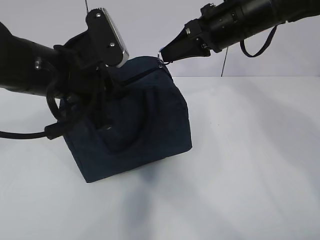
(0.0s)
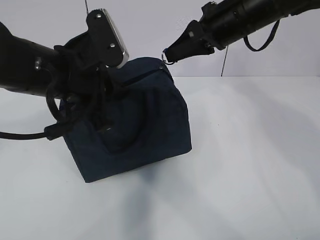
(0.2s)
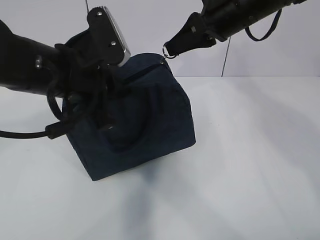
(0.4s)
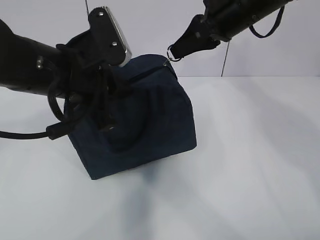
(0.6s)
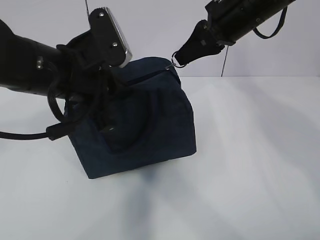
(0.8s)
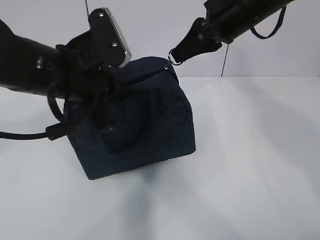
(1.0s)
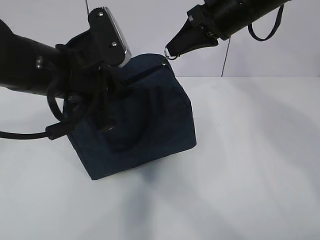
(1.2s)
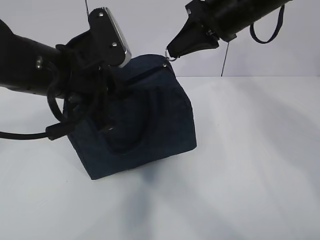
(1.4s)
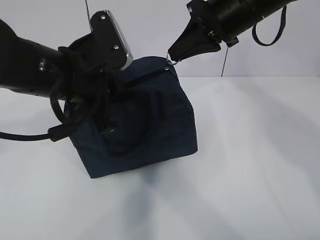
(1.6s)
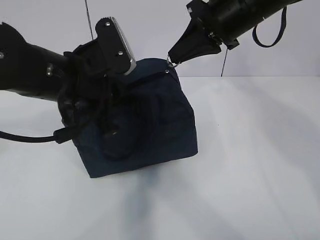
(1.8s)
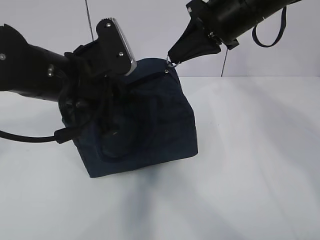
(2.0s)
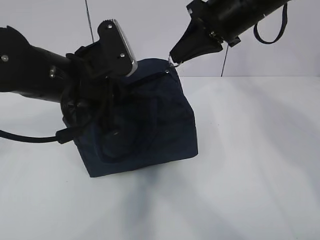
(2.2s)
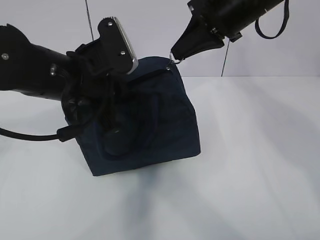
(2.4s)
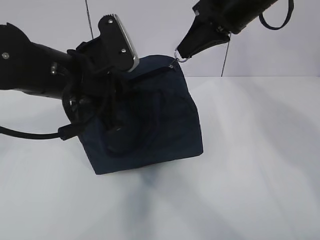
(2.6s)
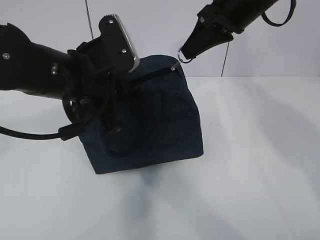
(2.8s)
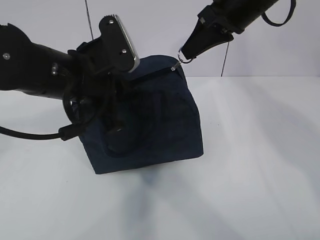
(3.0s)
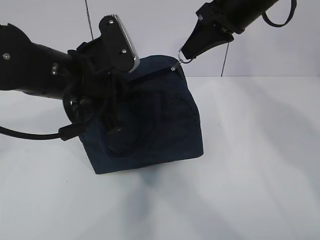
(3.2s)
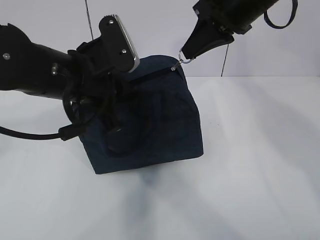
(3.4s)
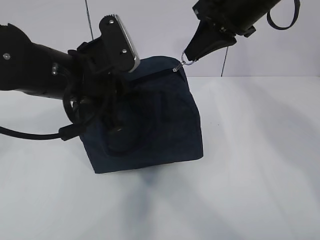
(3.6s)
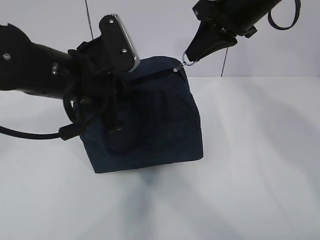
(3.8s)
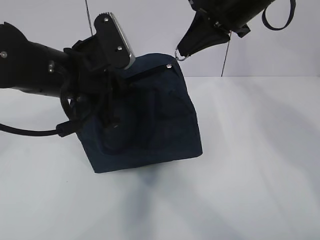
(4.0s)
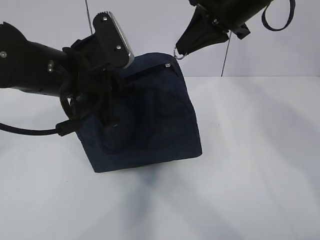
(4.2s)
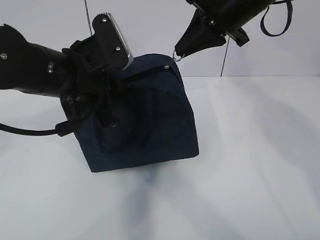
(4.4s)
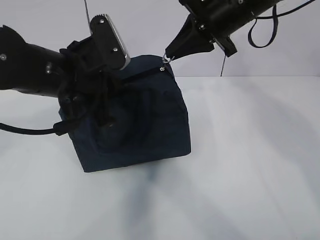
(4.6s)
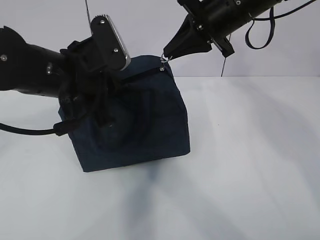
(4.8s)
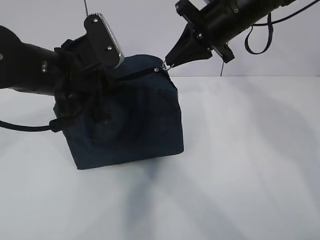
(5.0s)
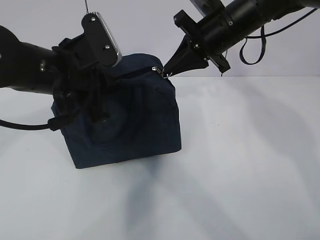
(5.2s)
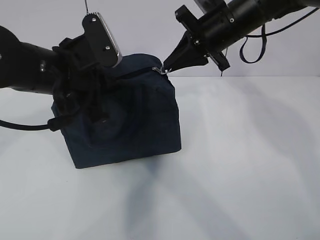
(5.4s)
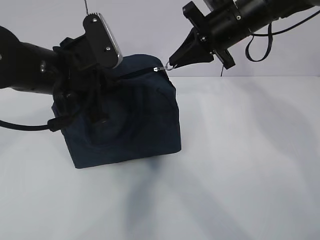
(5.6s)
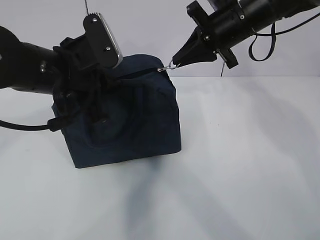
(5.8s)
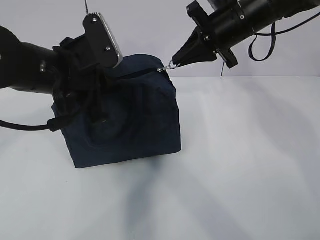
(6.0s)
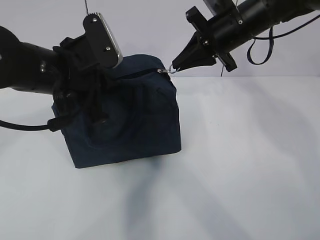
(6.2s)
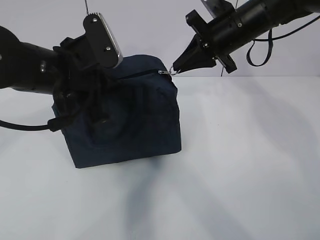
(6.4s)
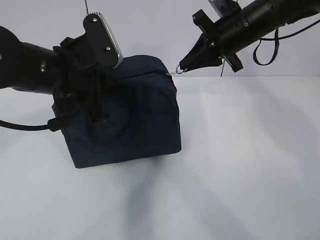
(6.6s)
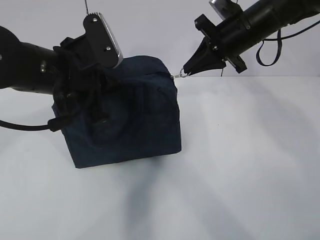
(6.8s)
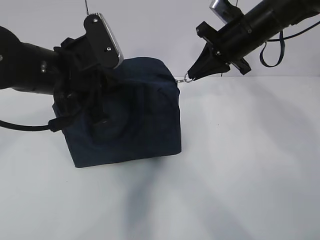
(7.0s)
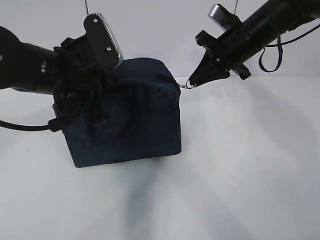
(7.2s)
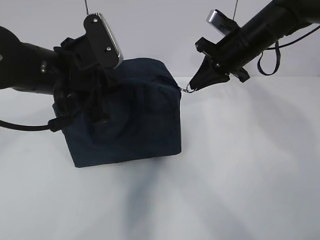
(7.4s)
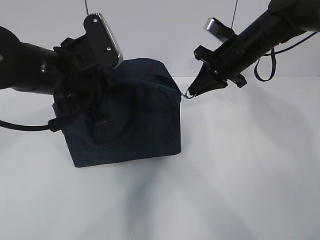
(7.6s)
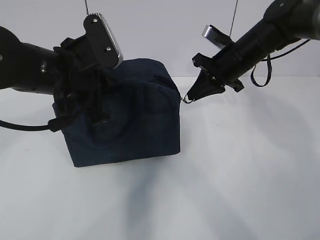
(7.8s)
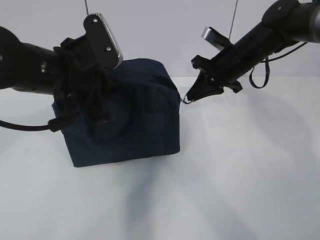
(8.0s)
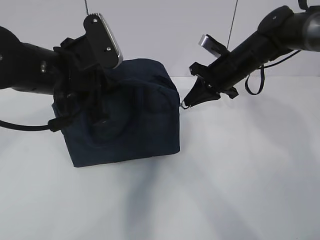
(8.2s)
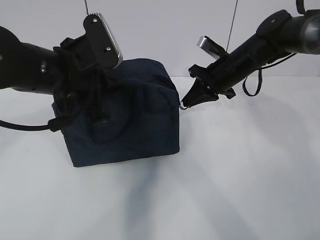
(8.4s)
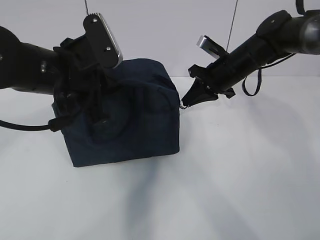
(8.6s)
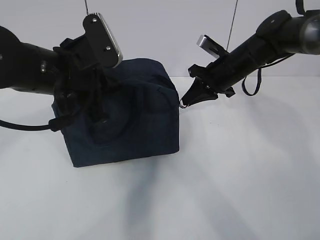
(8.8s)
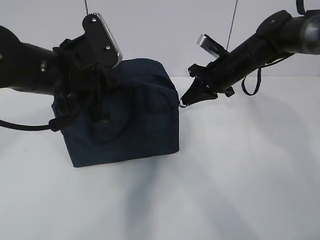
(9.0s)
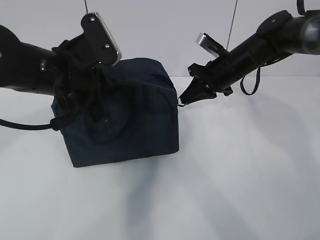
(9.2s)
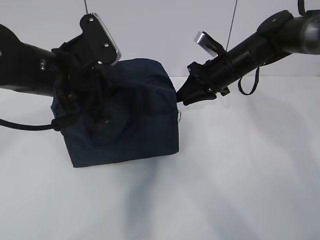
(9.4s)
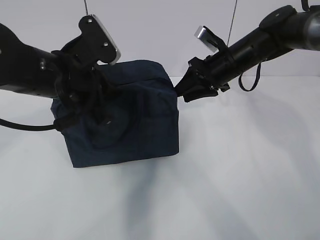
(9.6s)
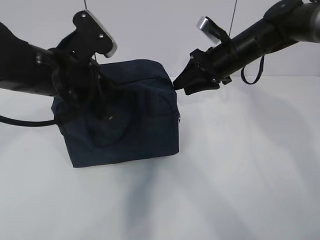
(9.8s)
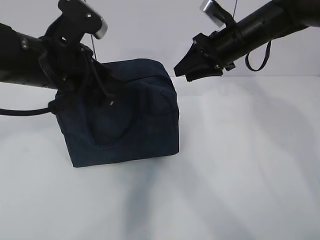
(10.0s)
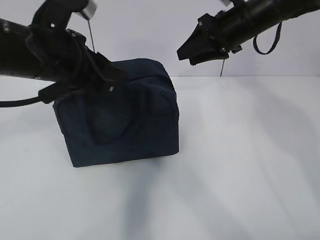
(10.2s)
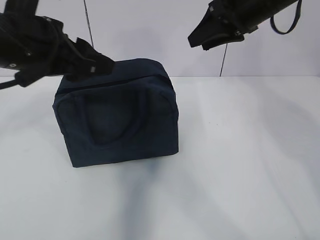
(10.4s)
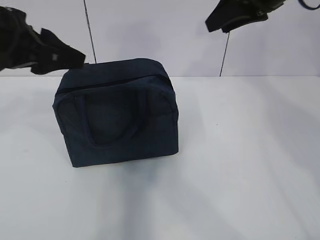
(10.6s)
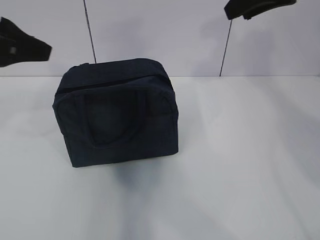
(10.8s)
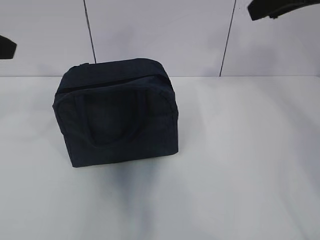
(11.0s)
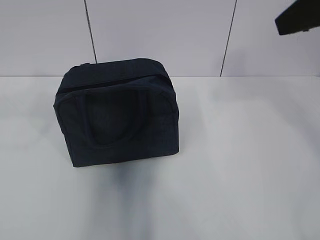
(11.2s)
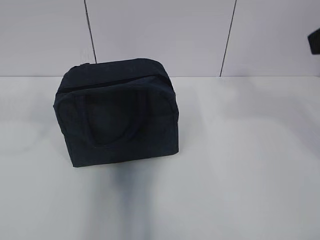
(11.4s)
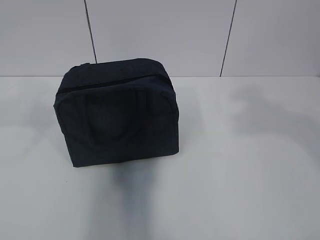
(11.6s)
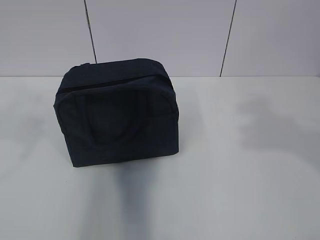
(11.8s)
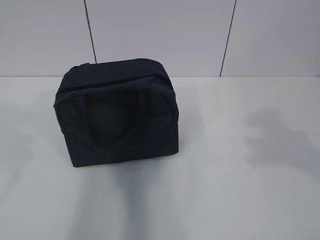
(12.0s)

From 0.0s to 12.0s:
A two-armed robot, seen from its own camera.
From 1.6s to 3.0s: The grippers make only small movements.
From 4.4s to 6.0s: The right gripper is displaced downward by roughly 5 cm.
From 6.0s to 7.6s: The right gripper is displaced downward by some 5 cm.
From 7.6s to 9.0s: The grippers make only small movements.
From 9.0s to 10.4s: The left gripper heads upward, covering approximately 5 cm, and opens; the right gripper moves upward, approximately 15 cm, and opens up.
From 10.4s to 12.0s: The right gripper goes about 35 cm backward. Meanwhile the left gripper goes some 20 cm backward and to the left.

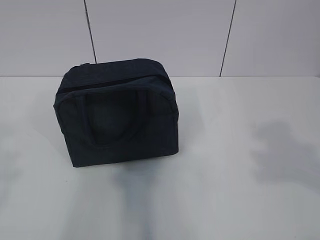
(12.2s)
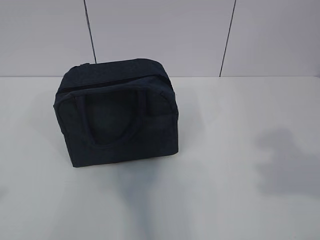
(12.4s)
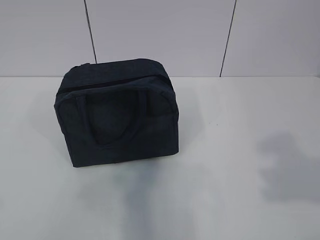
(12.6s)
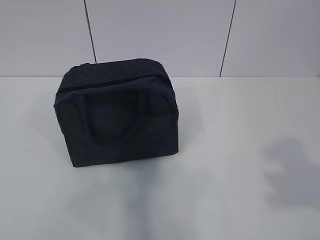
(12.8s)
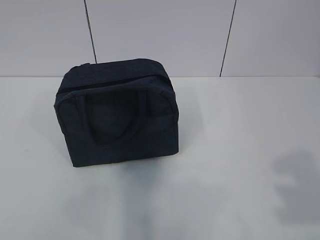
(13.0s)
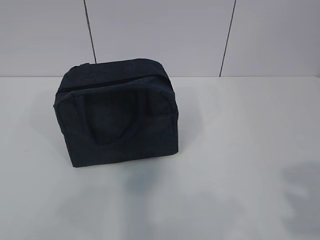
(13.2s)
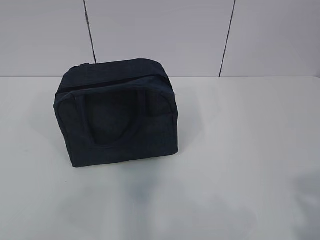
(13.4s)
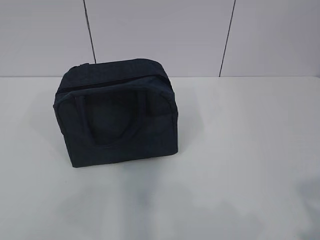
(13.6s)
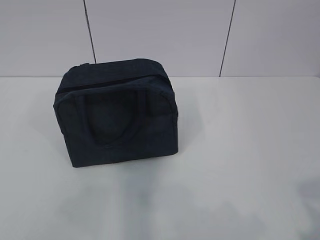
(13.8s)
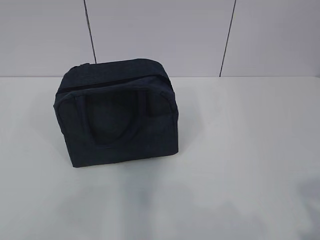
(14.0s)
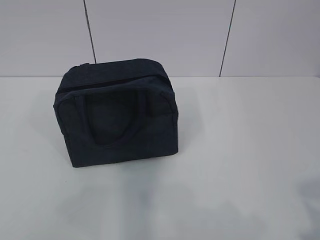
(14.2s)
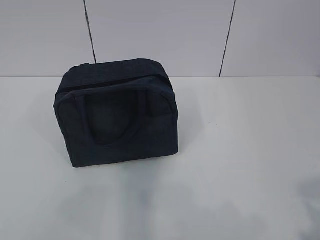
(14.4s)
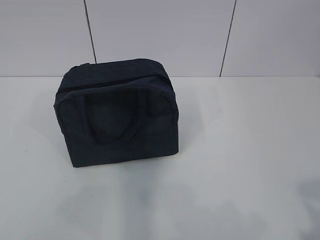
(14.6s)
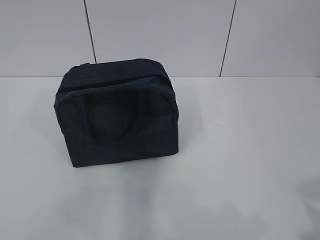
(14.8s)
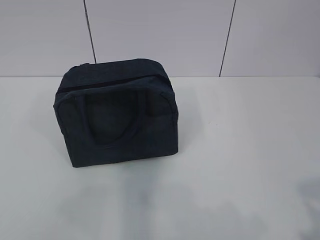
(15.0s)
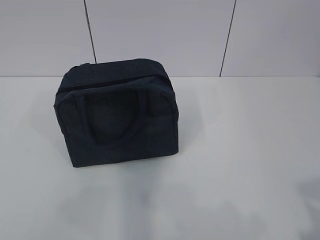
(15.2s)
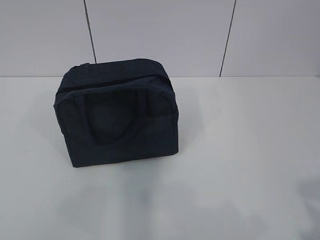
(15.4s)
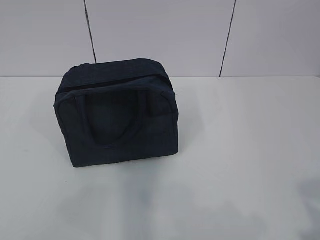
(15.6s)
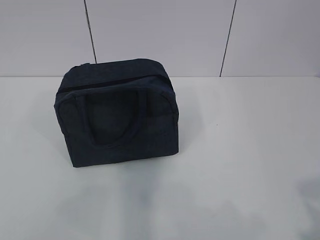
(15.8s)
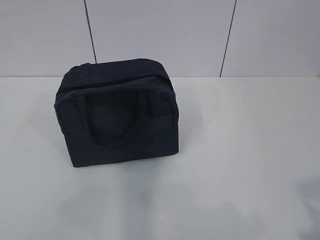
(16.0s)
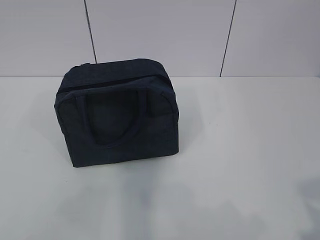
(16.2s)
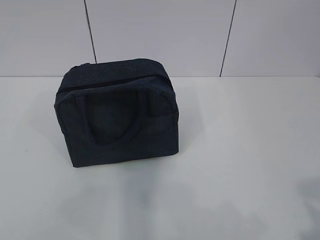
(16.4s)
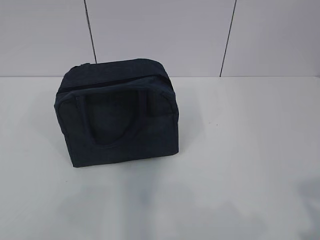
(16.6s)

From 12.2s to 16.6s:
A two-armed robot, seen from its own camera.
From 12.2s to 13.6s: The two grippers go approximately 10 cm backward and downward.
From 13.6s to 16.6s: The two grippers keep their place.

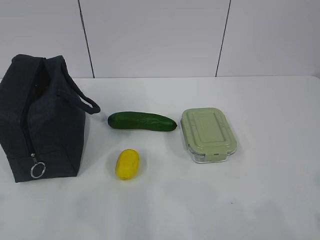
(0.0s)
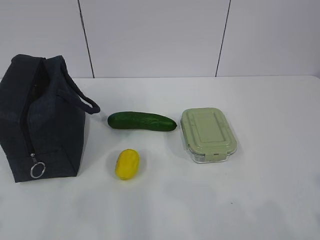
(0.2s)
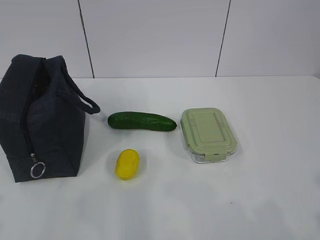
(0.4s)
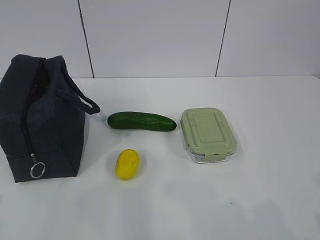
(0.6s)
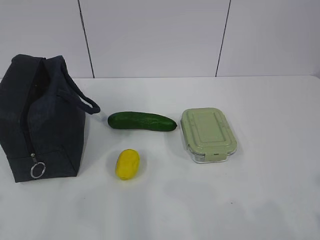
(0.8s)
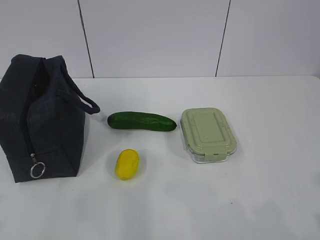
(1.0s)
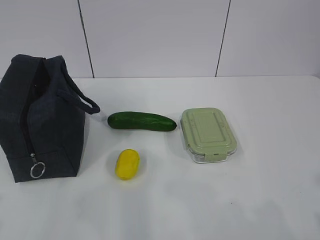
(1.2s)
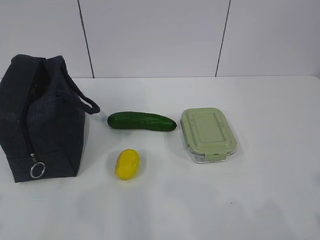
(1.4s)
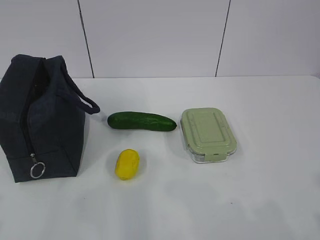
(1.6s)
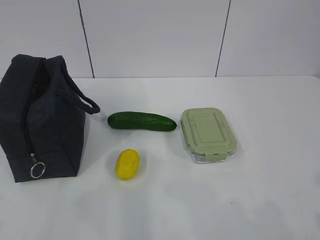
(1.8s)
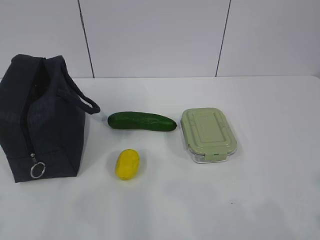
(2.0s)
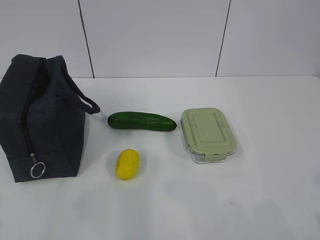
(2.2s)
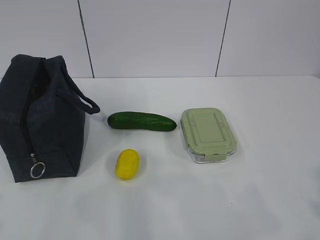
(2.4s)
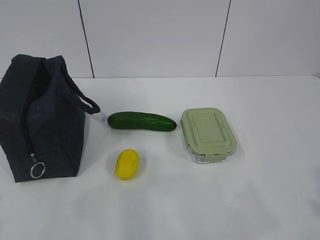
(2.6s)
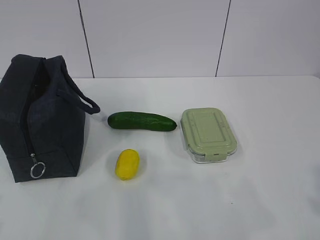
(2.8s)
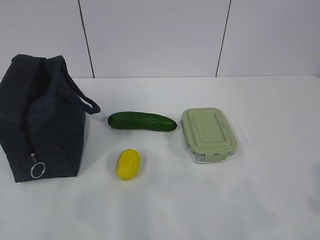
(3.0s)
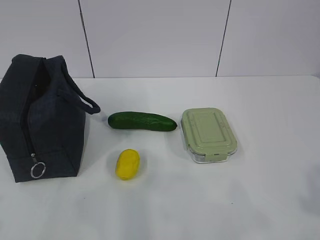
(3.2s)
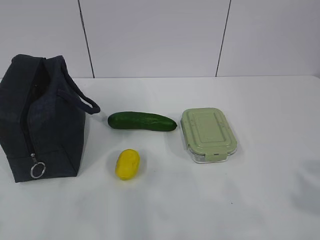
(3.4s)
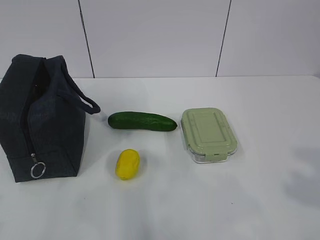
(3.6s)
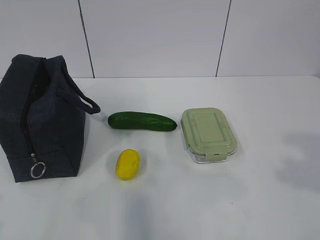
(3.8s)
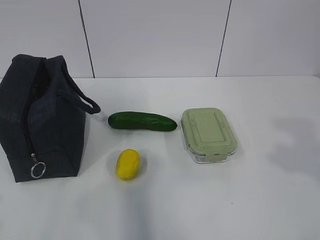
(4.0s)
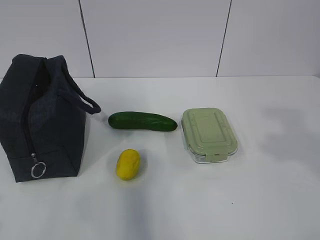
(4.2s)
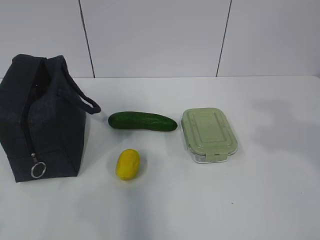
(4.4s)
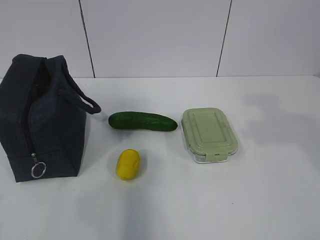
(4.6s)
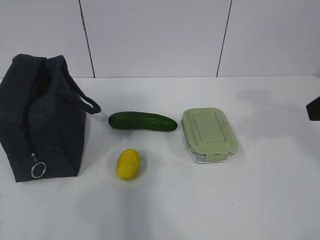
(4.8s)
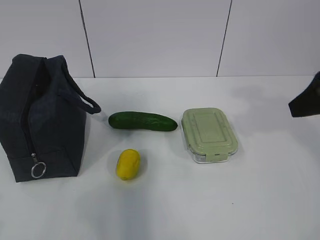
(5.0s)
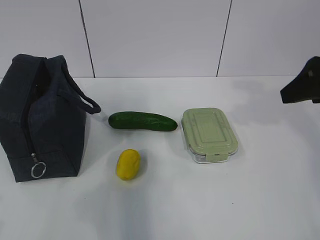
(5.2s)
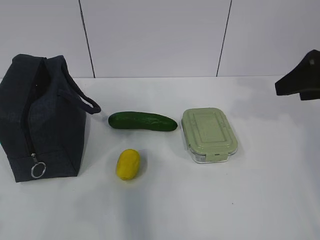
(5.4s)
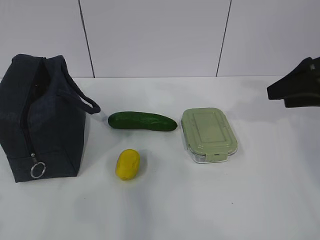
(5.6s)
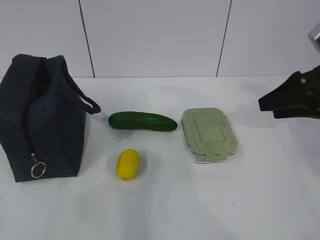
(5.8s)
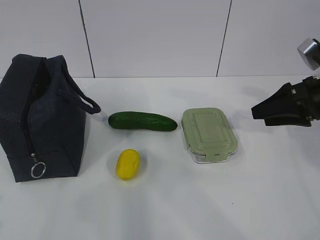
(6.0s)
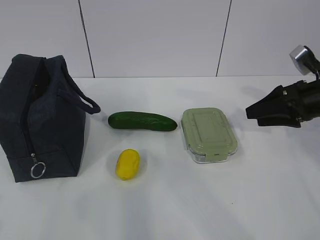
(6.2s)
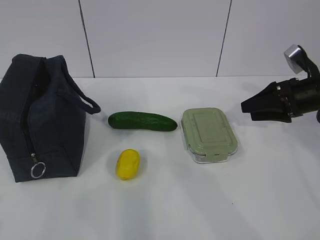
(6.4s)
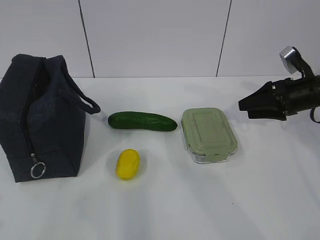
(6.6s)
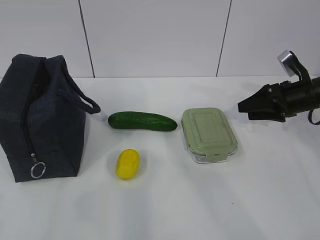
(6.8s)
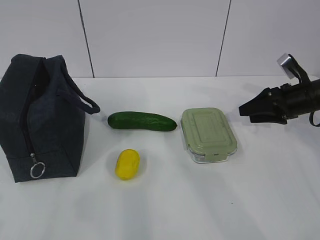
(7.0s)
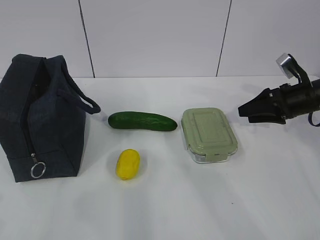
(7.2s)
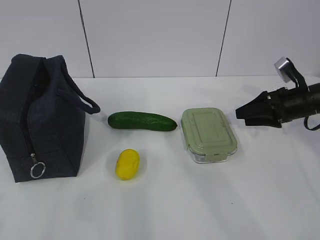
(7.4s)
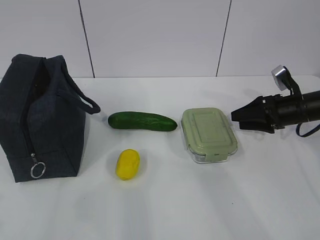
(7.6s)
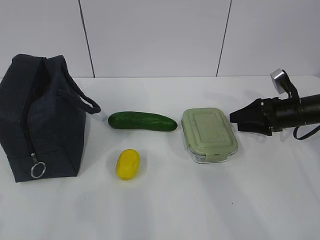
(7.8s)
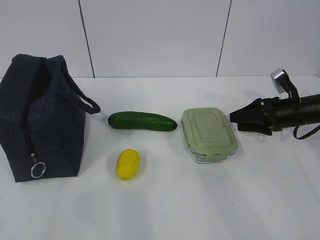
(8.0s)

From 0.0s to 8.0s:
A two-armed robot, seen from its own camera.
From 3.2s to 4.8s: The right gripper goes roughly 20 cm forward.
From 4.8s to 6.4s: The right gripper goes approximately 25 cm forward and downward.
From 6.4s to 8.0s: The right gripper is displaced downward by approximately 5 cm.
